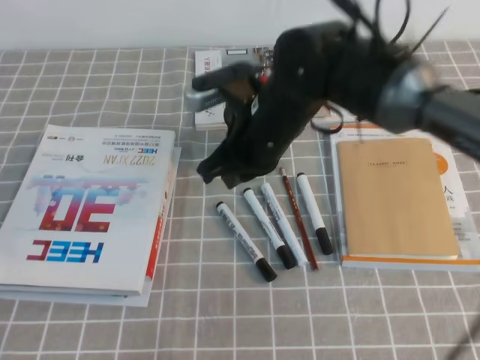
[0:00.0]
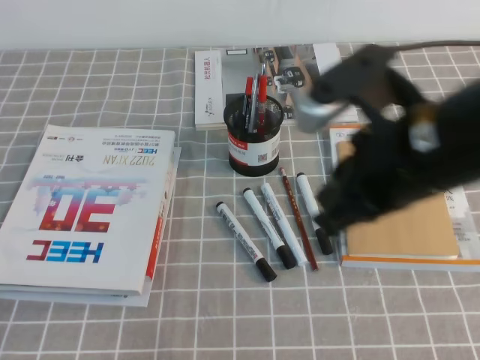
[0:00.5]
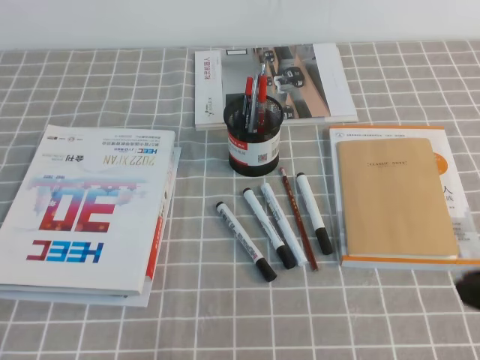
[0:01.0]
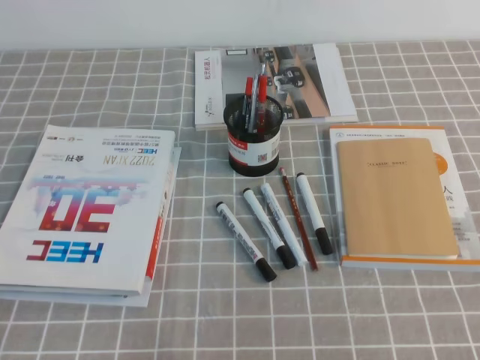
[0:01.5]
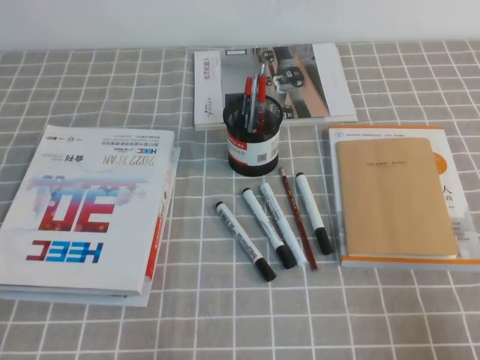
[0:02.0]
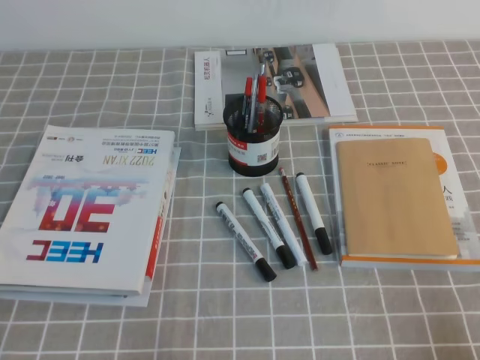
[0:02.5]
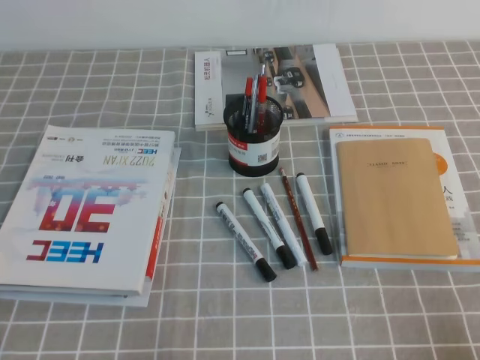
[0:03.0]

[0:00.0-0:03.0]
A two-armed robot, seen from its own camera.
Step, 0:00.0 to 0:03.0: Pick up the pen from the pen holder.
0:00.0 to 0:01.5: The right gripper travels backward and to the right by approximately 35 cm.
0:01.5 to 0:03.0: The right gripper moves downward and to the right, approximately 15 cm.
